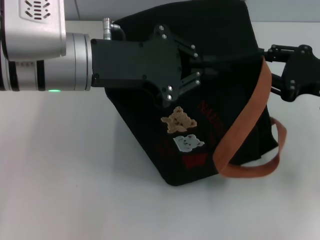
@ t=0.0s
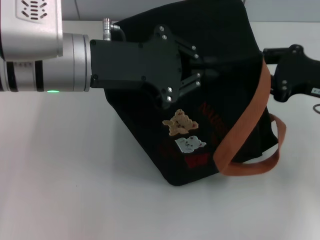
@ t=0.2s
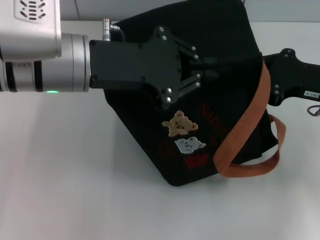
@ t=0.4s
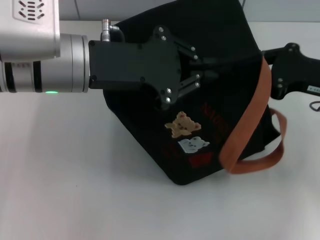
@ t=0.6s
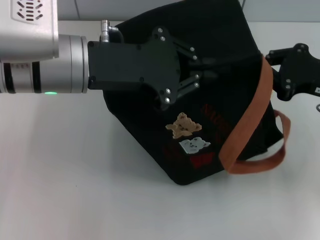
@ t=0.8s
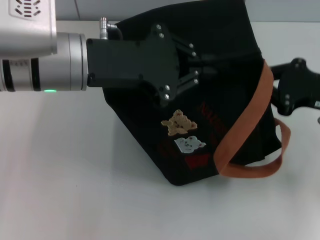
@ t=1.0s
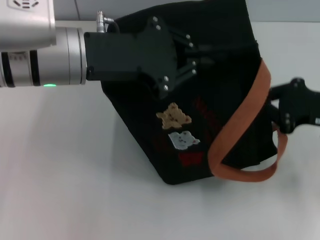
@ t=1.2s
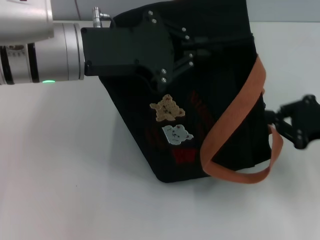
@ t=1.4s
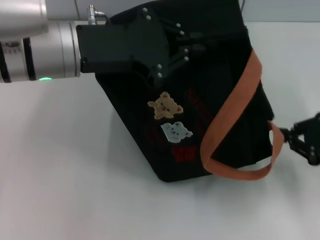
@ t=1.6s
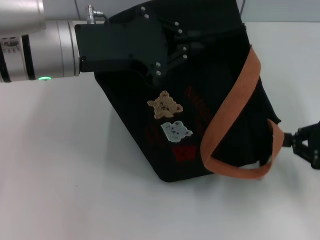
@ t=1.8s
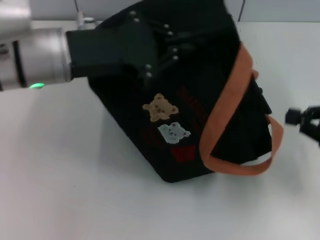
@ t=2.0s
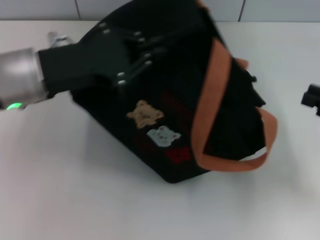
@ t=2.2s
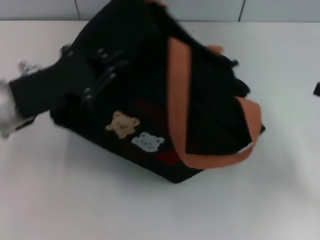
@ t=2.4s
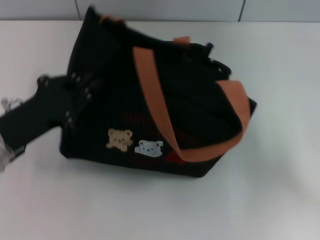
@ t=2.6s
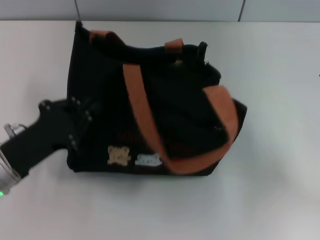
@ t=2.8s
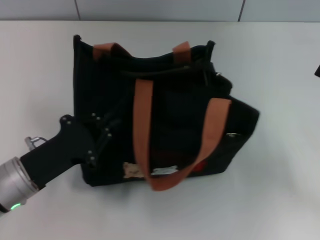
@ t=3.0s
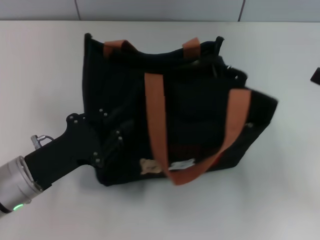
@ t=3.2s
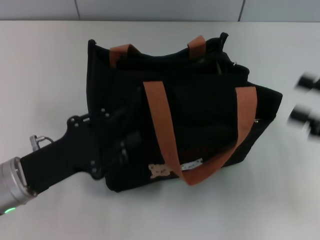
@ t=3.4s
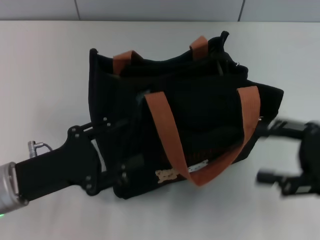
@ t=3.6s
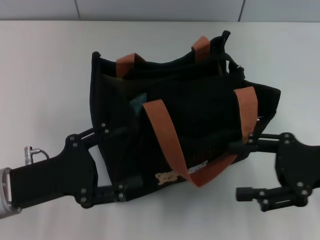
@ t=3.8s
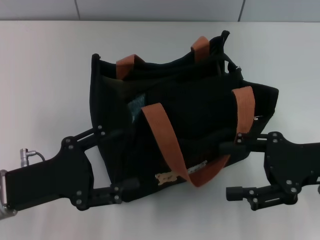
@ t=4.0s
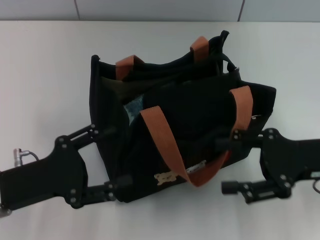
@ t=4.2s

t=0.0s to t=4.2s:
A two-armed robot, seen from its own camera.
Step, t=2.2s to t=3.8s: Grab the bag with your left hand.
t=0.0s to t=1.4s: The right gripper closes.
t=1.4s to t=2.8s: The right gripper shifts by approximately 5 cm, and opens up, while the left gripper is displaced downward, to the left and backward by about 20 cm.
t=2.8s to t=4.2s: The left gripper opens its fingers; the right gripper heads to the left, covering roughly 10 cm.
